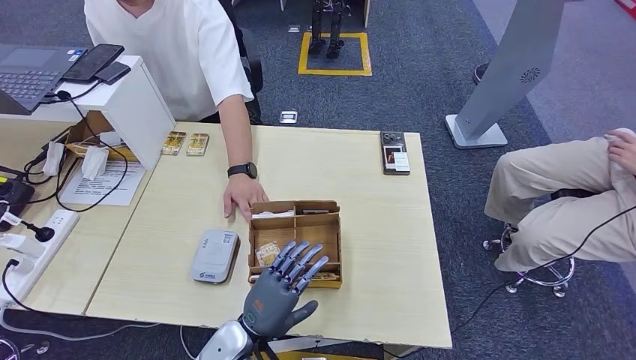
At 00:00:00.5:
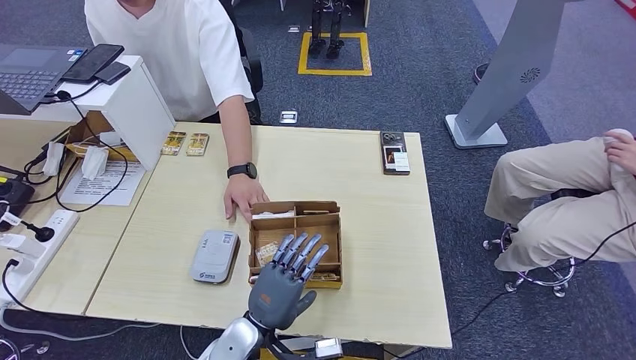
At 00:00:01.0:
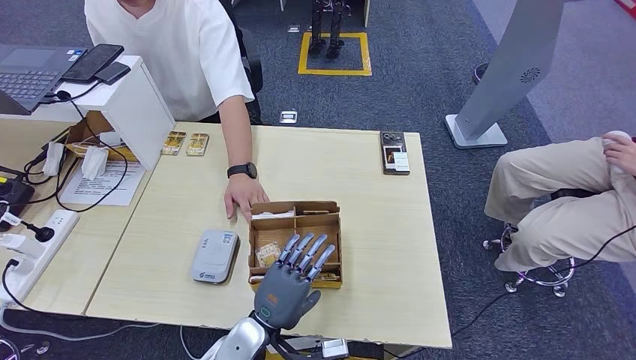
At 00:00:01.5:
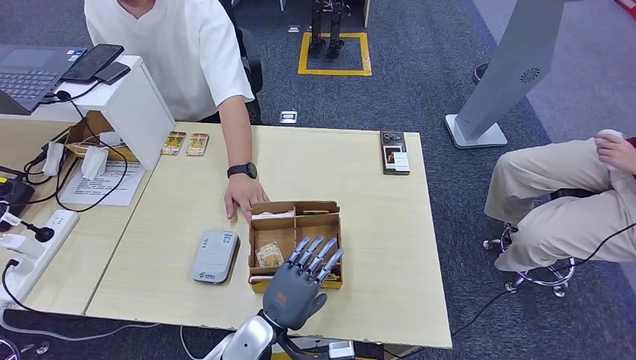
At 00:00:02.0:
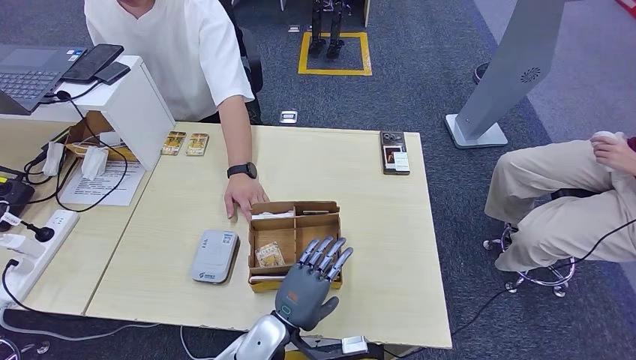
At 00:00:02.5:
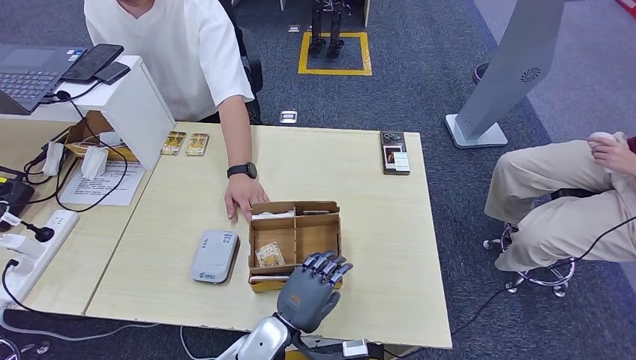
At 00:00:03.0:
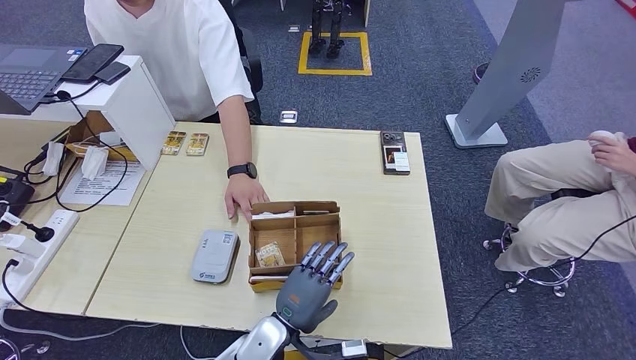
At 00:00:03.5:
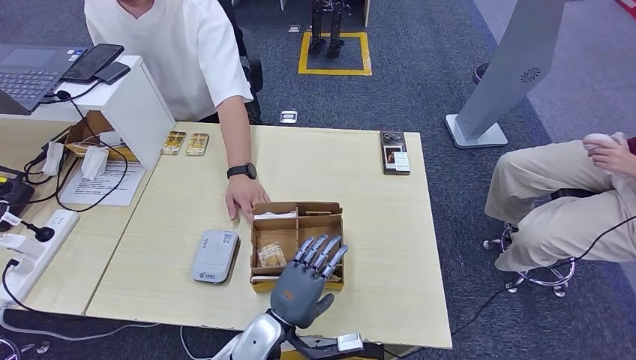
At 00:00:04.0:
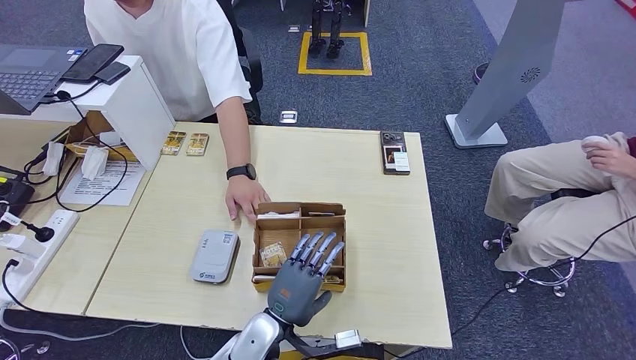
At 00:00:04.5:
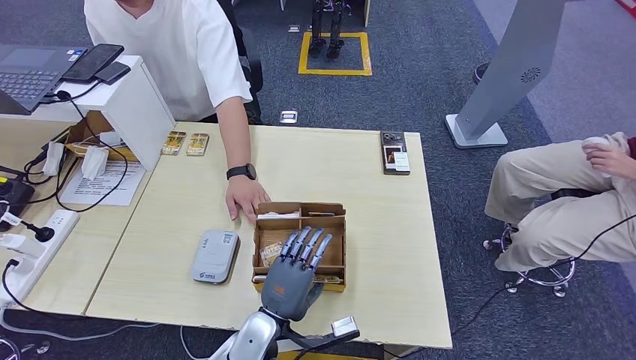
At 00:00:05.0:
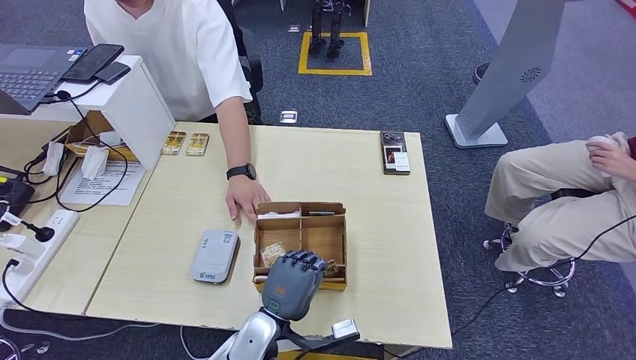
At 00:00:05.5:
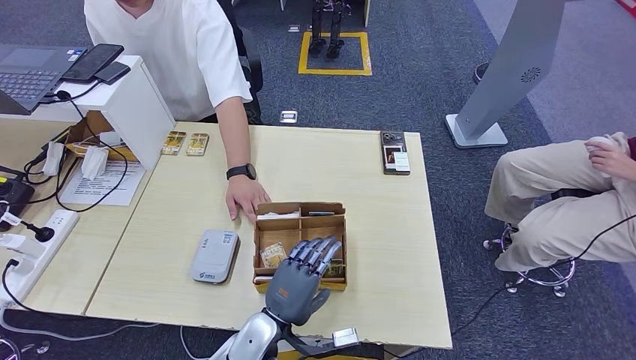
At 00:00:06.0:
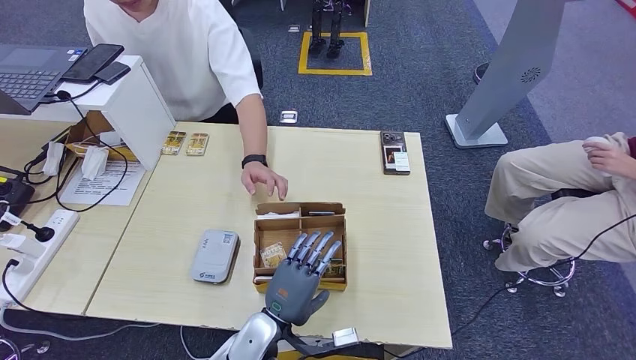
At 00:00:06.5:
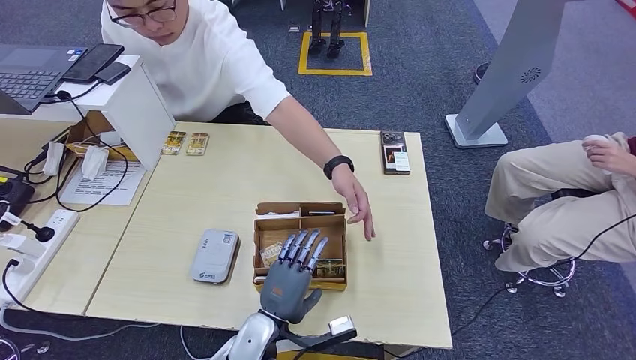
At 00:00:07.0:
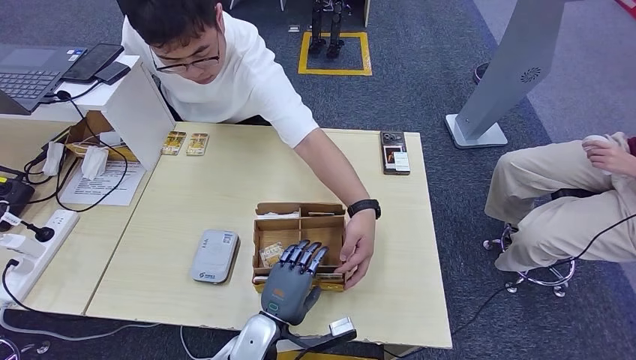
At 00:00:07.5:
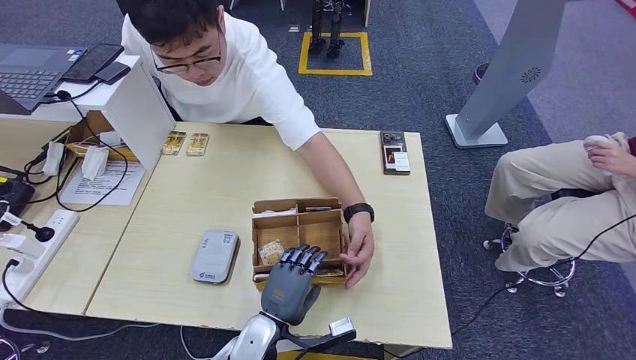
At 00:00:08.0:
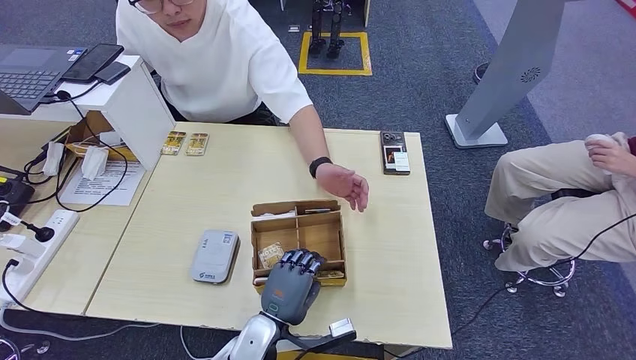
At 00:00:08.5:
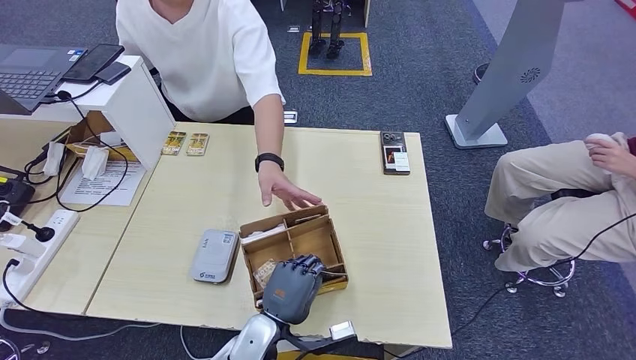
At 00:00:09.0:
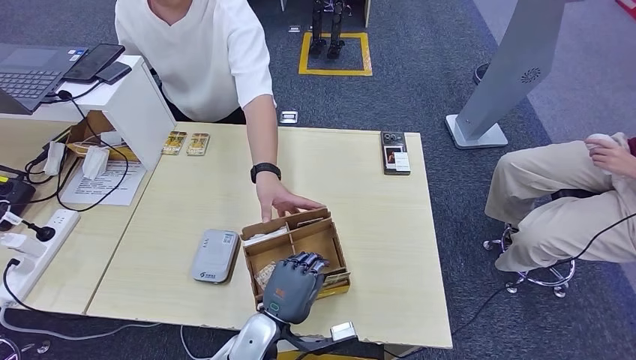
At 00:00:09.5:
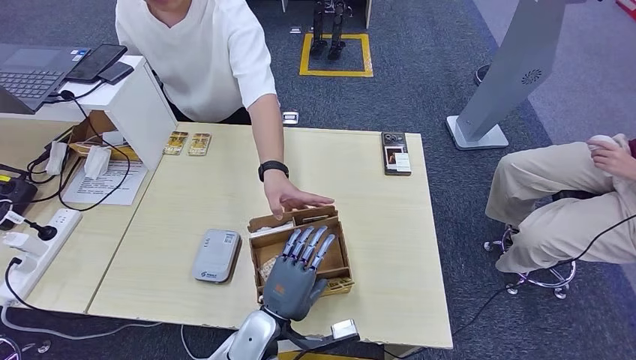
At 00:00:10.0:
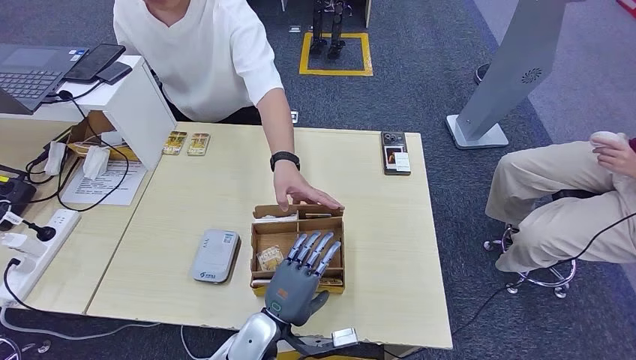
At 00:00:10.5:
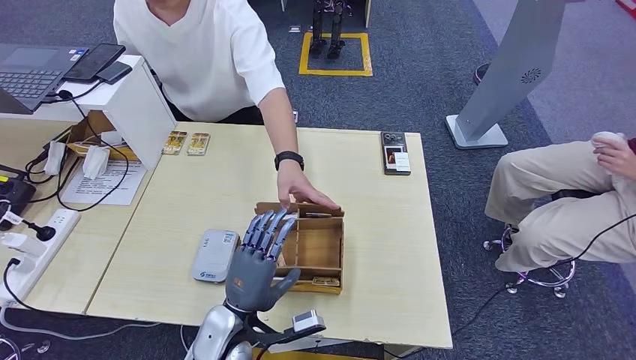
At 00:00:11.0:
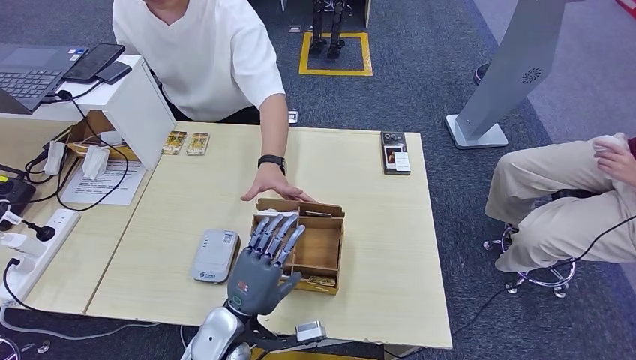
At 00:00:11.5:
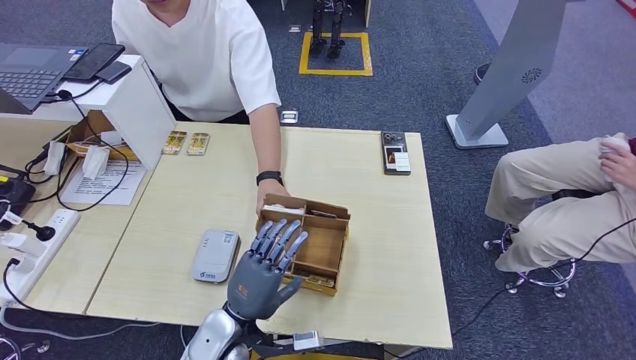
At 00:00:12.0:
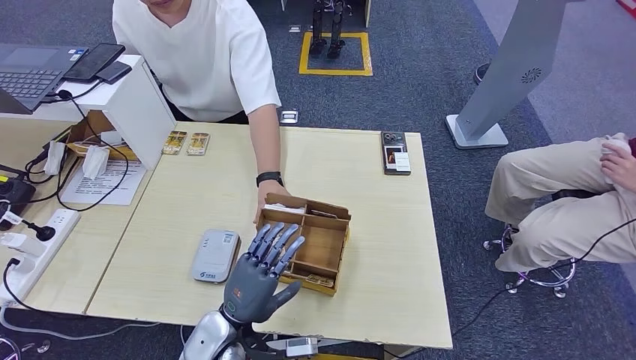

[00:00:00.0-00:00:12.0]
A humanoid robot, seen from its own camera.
00:00:00.0 to 00:00:02.0: The left hand goes approximately 5 cm to the right.
00:00:02.0 to 00:00:04.0: Neither hand changes place.
00:00:04.0 to 00:00:10.0: The hands move only a little.
00:00:10.0 to 00:00:12.0: The left hand travels to the left by approximately 5 cm.

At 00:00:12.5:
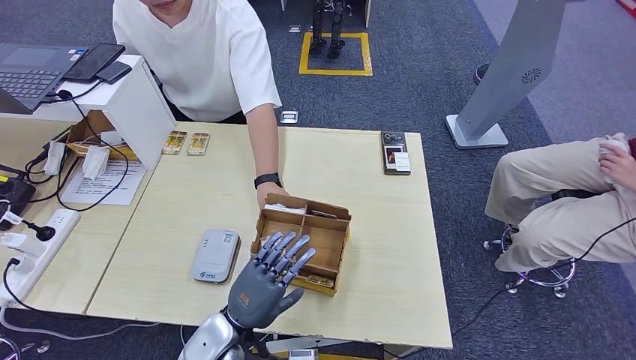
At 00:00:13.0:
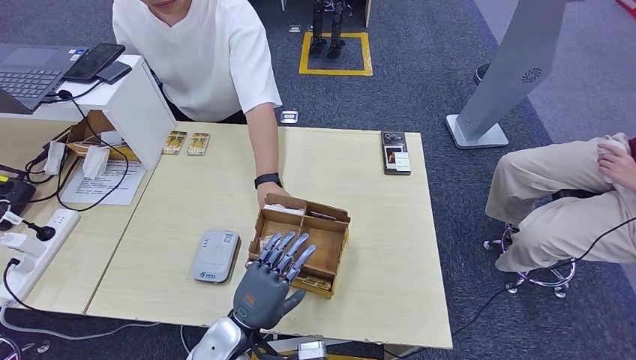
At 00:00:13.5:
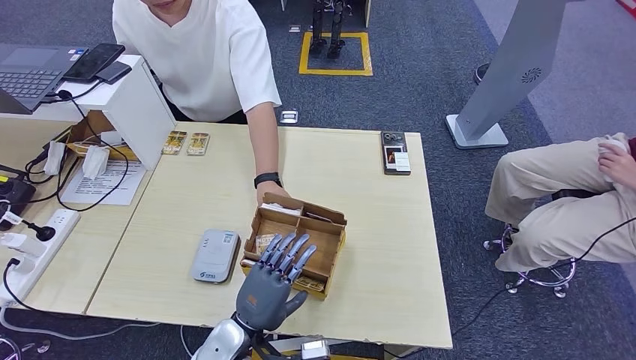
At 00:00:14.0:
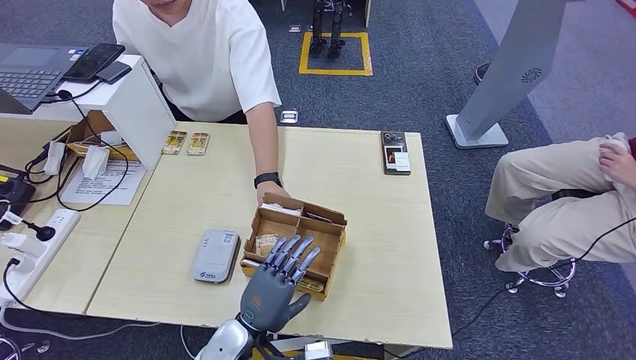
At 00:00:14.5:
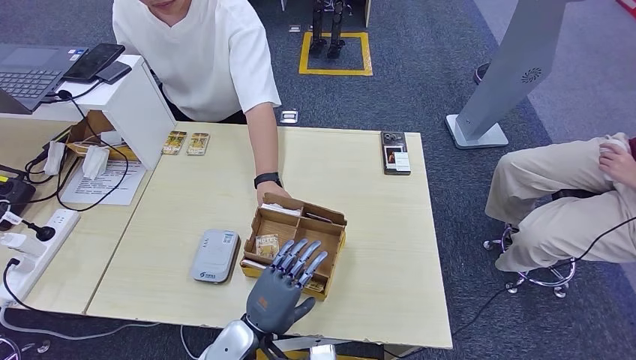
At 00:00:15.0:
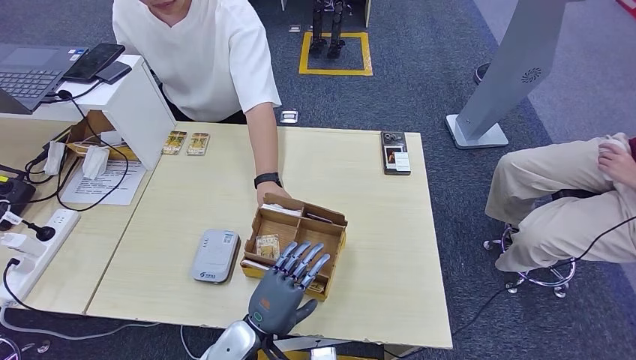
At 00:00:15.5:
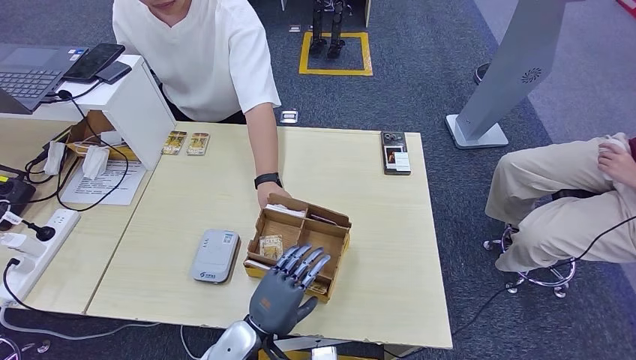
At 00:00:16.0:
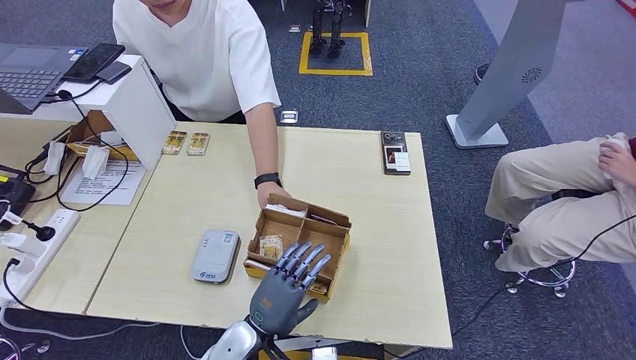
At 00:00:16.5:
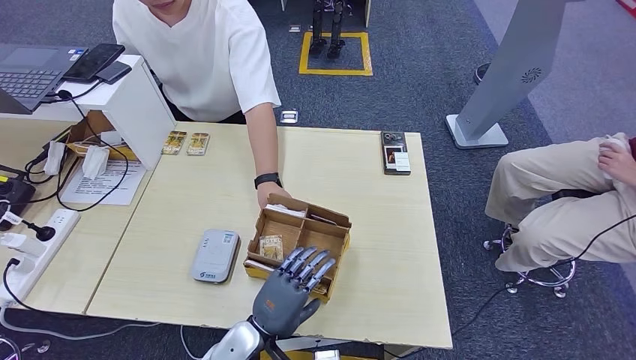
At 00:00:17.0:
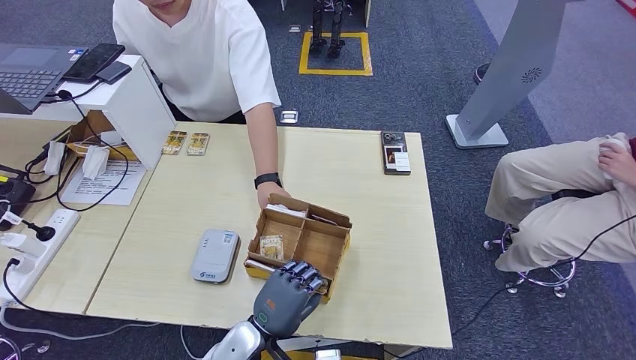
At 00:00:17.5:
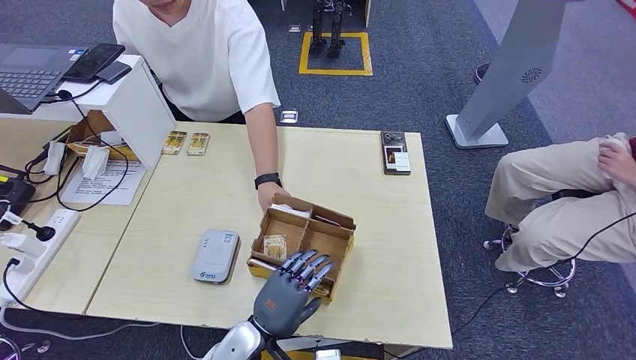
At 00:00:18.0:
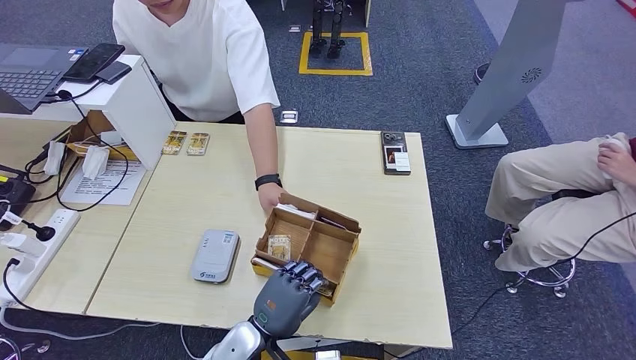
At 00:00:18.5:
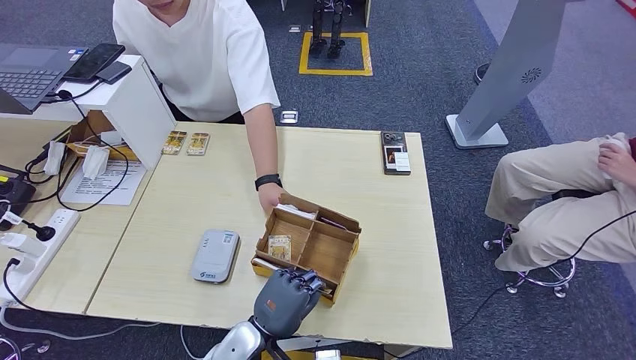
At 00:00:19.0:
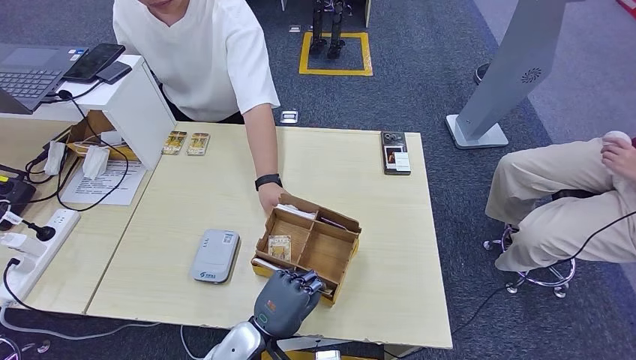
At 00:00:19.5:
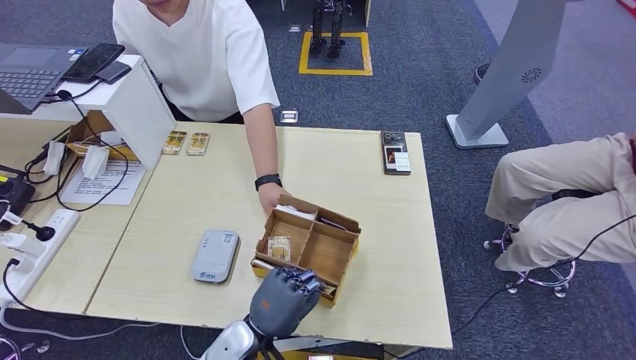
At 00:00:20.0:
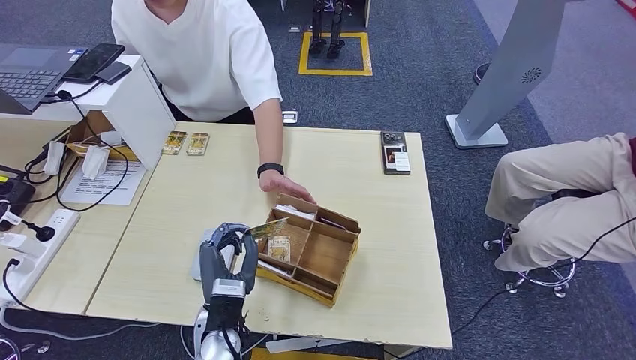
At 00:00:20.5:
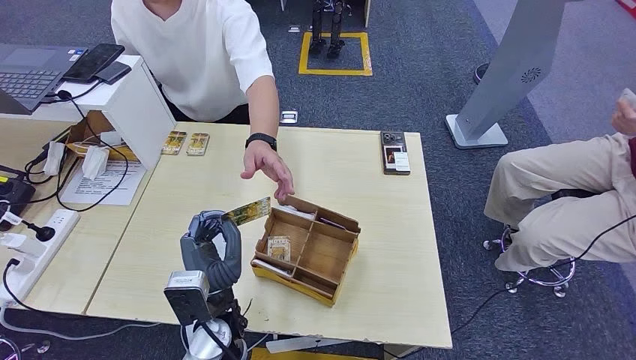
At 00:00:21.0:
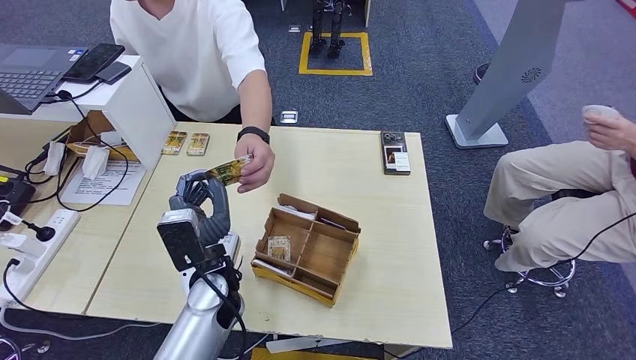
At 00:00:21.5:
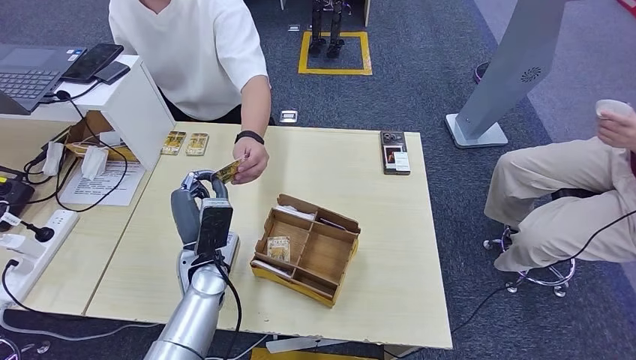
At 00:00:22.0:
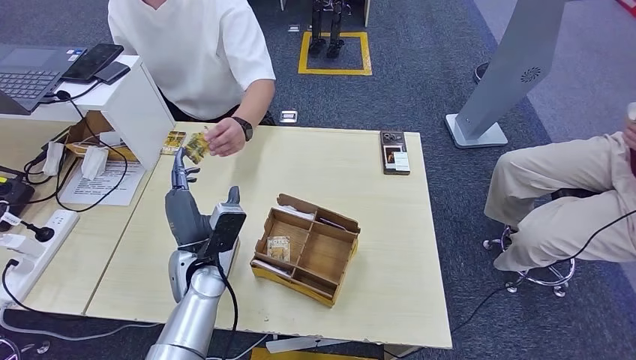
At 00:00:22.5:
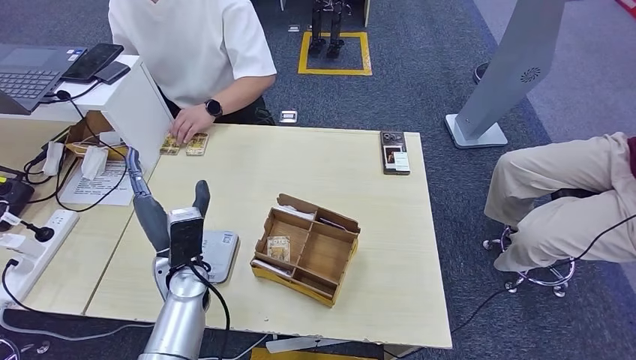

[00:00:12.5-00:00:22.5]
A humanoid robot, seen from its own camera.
Step, 00:00:12.5 to 00:00:19.0: Pick up the room key from the key card box.
Step, 00:00:19.5 to 00:00:22.5: Hand the room key to the person.
00:00:12.5 to 00:00:14.5: The hands make only small movements.
00:00:14.5 to 00:00:18.5: Both hands stay put.
00:00:18.5 to 00:00:20.5: The left hand moves upward, roughly 10 cm.
00:00:20.5 to 00:00:22.5: The left hand is displaced forward and to the left by about 10 cm.
